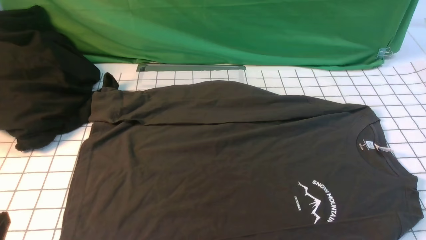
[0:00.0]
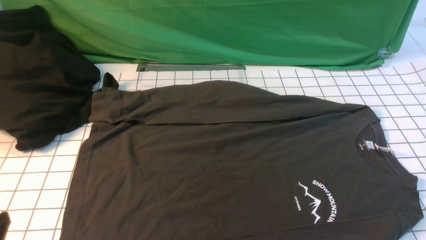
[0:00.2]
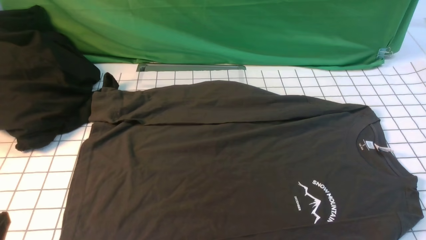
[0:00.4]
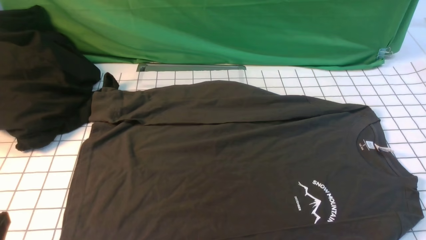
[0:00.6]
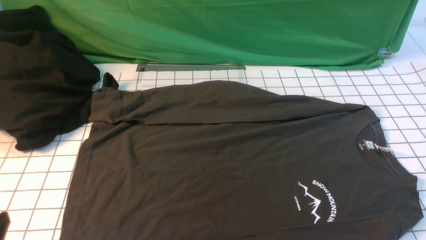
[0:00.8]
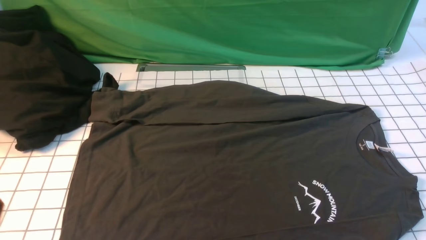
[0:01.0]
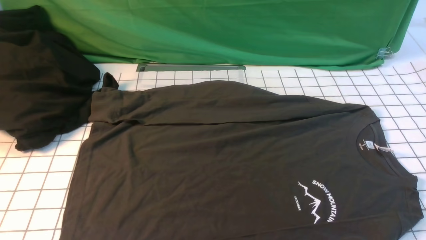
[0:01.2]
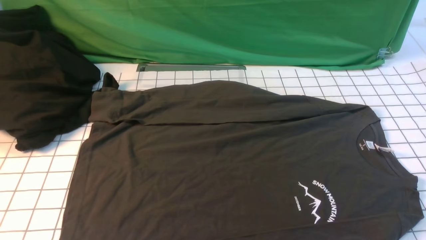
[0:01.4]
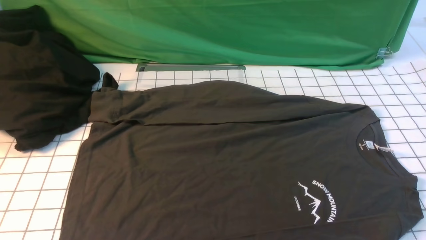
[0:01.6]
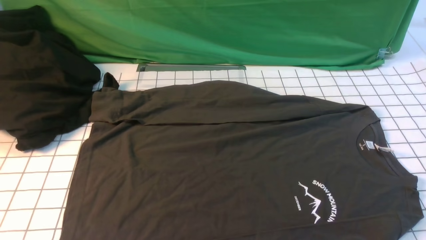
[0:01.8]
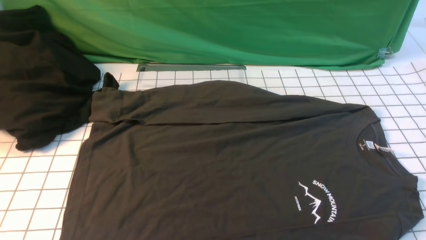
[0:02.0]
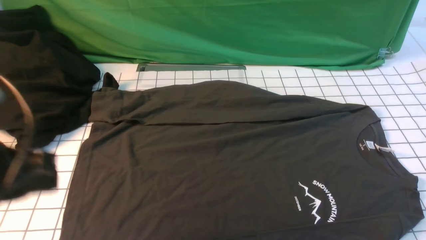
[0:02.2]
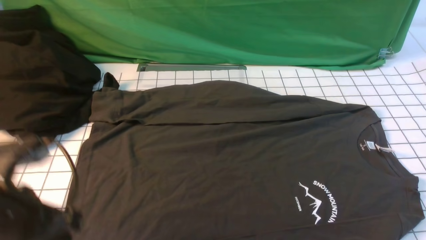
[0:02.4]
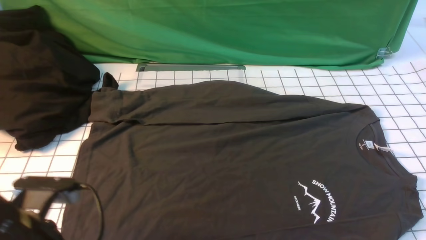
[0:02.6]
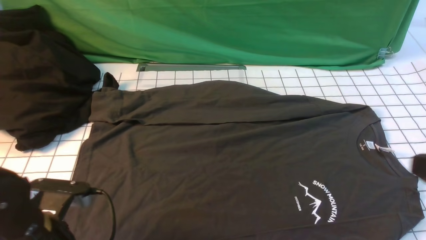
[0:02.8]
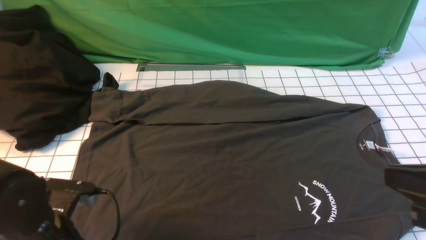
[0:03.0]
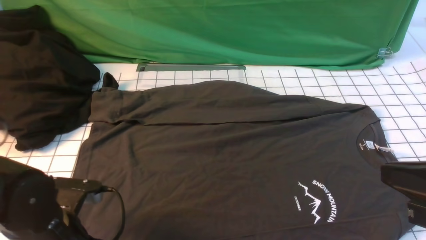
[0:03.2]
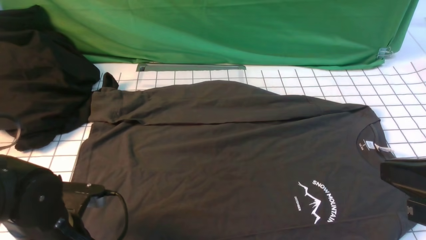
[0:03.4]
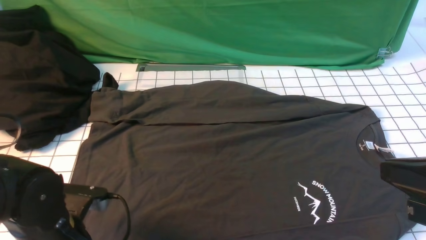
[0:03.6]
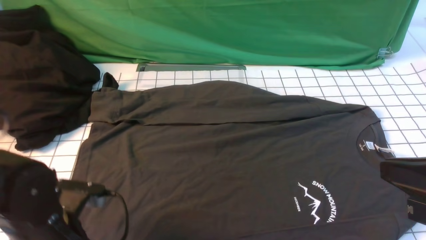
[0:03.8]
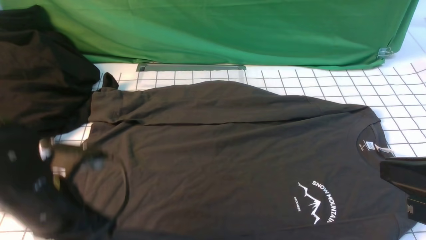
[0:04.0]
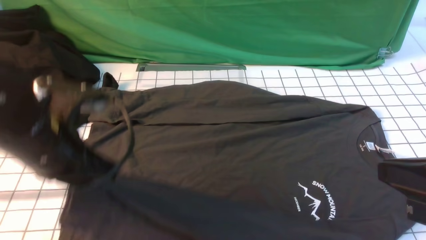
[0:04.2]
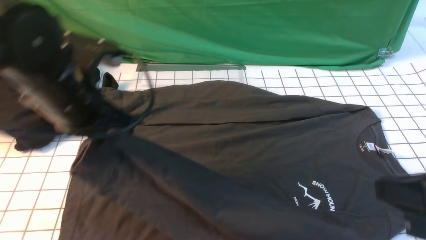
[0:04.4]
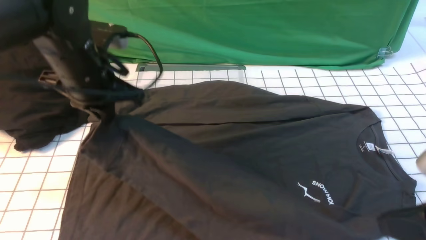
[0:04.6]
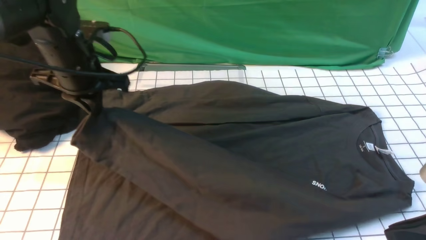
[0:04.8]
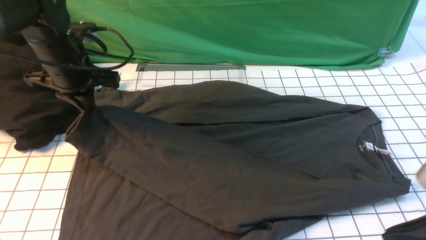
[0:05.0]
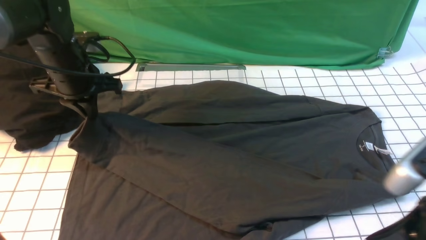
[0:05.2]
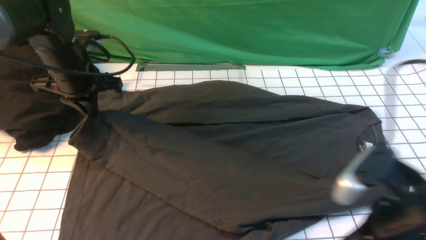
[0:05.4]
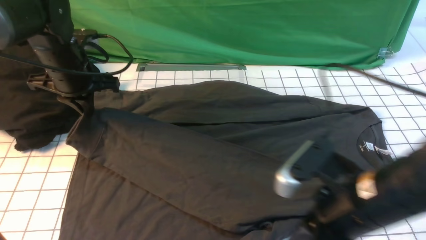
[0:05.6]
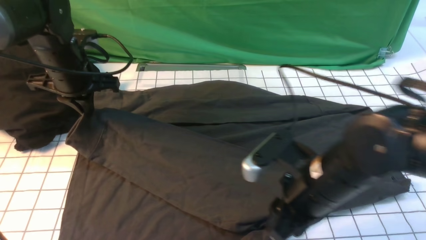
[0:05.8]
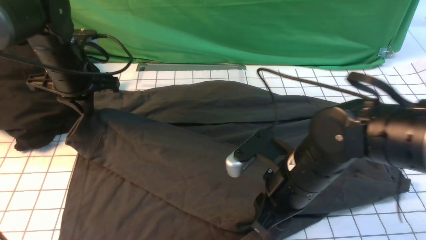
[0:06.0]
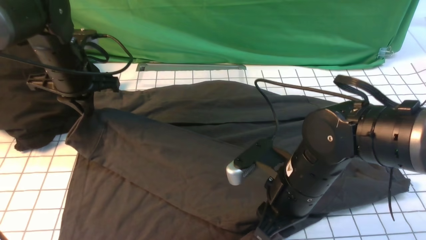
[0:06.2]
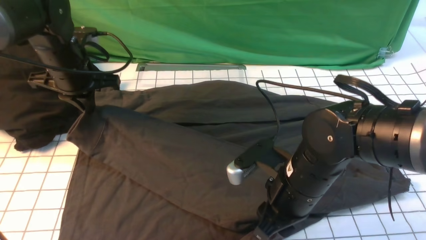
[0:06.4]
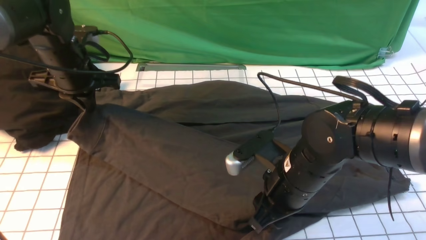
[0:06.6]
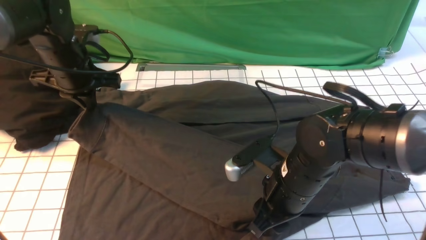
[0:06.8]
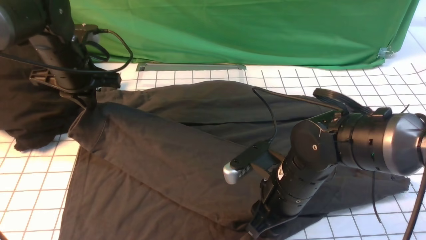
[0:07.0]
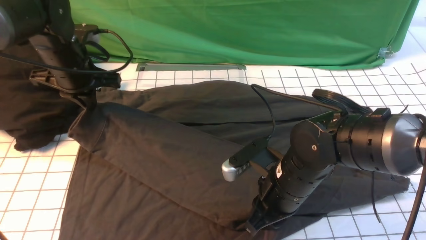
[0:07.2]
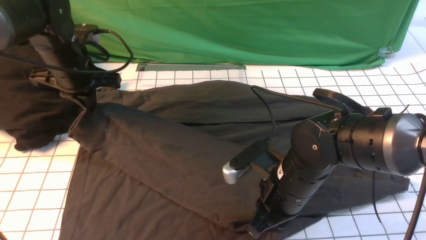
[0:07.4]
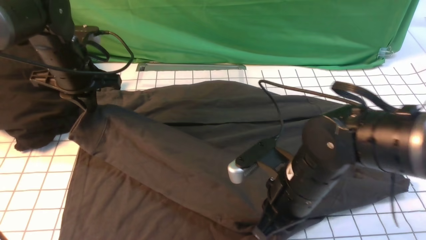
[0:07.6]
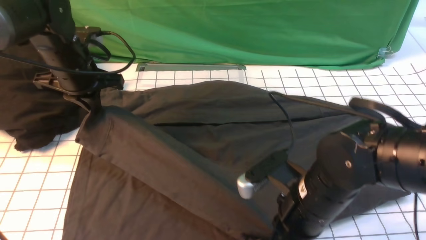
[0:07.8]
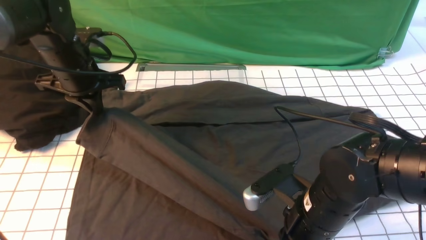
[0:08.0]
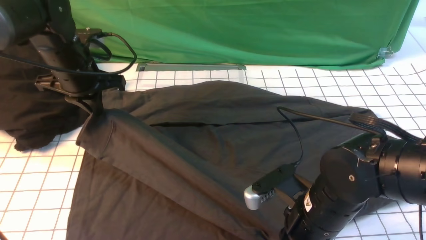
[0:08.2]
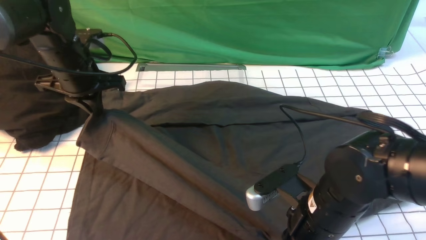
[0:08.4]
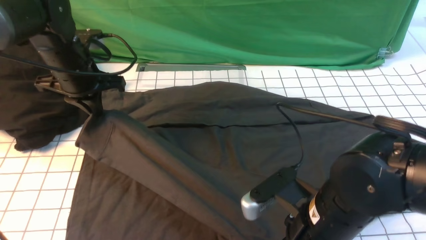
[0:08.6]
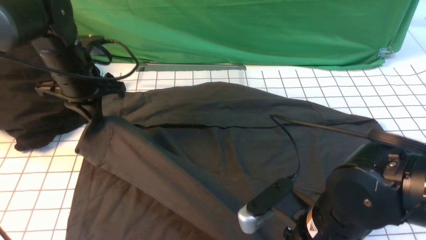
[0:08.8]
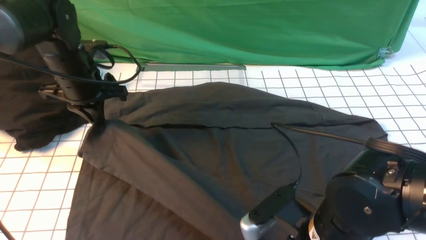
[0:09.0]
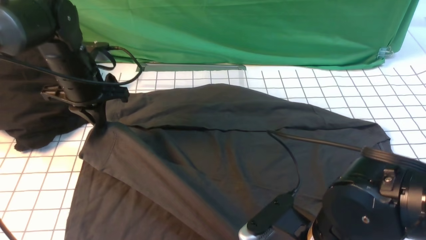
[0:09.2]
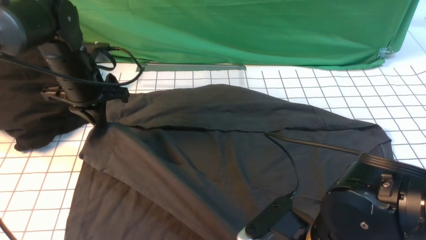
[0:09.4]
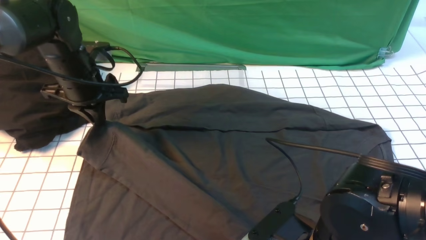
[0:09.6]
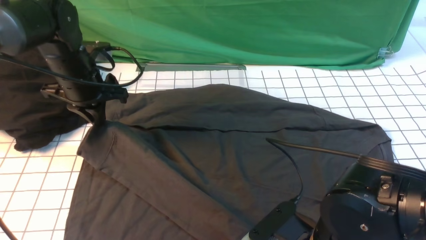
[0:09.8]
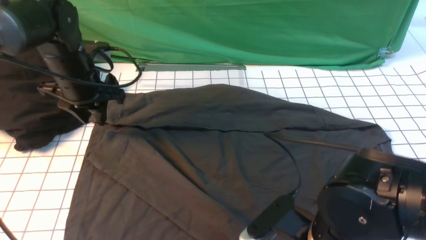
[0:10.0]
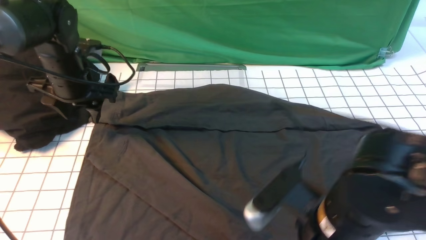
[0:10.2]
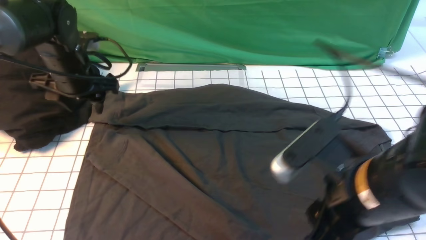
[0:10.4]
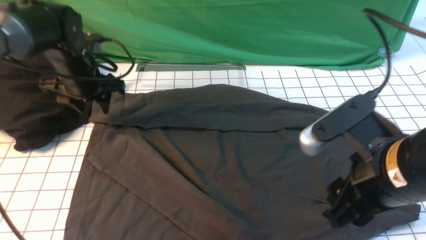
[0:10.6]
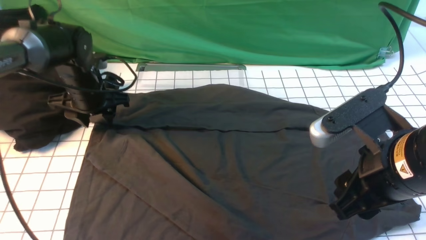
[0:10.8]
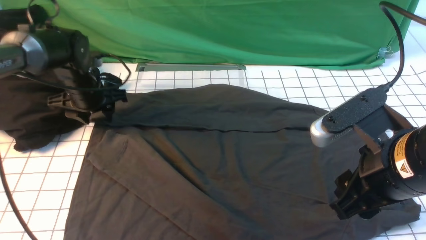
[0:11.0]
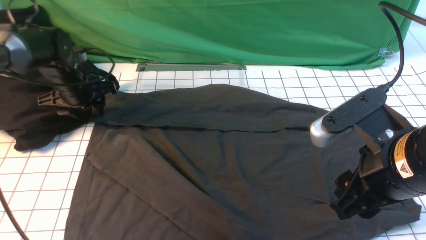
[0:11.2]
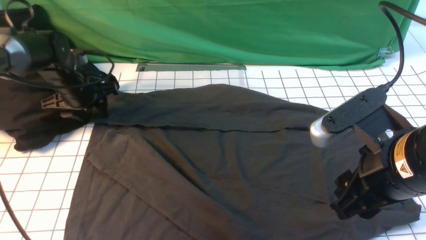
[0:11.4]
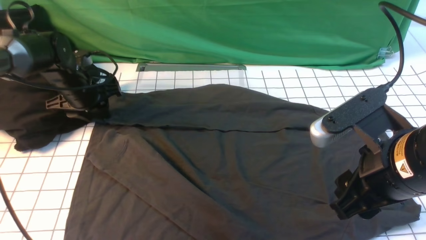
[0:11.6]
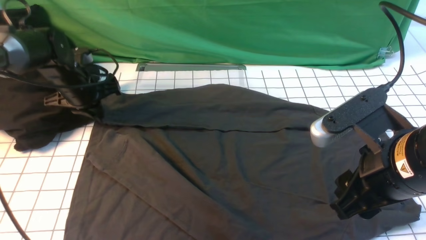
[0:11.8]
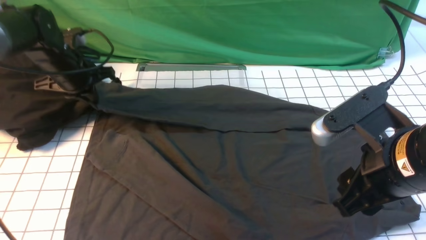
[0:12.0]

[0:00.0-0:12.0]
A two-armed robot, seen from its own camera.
Step, 0.0 to 3.8 s: use the left arm to clamp the cuff closest to it.
Step, 4.2 to 10.2 s: use the left arm to drag and place the cuff at the centered position on the left edge of the fabric.
Step, 10.4 to 11.8 s: use the left arm to clamp the cuff farthest from it.
1.6 to 3.0 s: The left gripper travels forward, downward and to the right by roughly 20 cm, and opens up. Meanwhile the right gripper is displaced upward, to the left and forward by some 15 cm, and closes.
3.0 to 4.4 s: The left gripper heads upward and forward, covering about 15 cm, and closes its fingers.
4.4 to 6.0 s: The right gripper moves to the left, forward and downward, about 20 cm, and opens; the left gripper is displaced forward, to the left and downward by approximately 15 cm.
6.0 to 7.6 s: The right gripper closes up.
7.6 to 9.0 s: The right gripper goes approximately 10 cm backward.
9.0 to 10.4 s: The left gripper opens. The right gripper travels upward by roughly 10 cm, and opens its fingers.
10.4 to 12.0 s: The right gripper ends up approximately 5 cm from where it was. The left gripper closes.

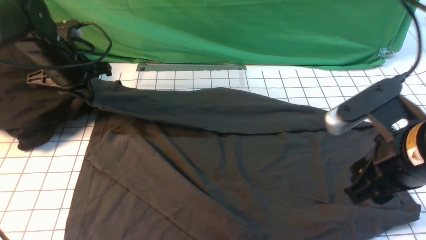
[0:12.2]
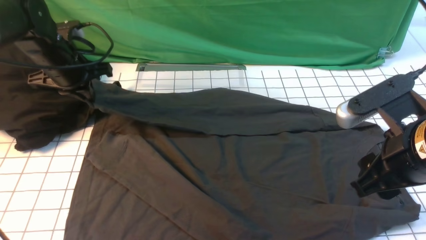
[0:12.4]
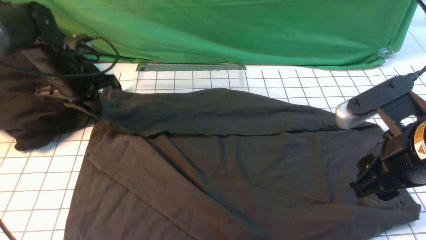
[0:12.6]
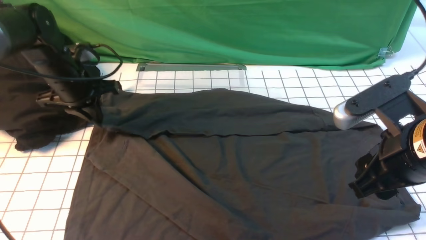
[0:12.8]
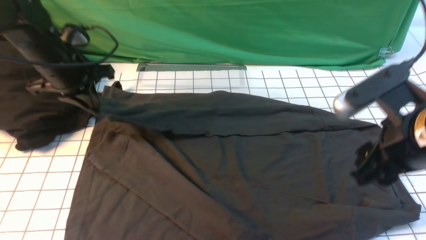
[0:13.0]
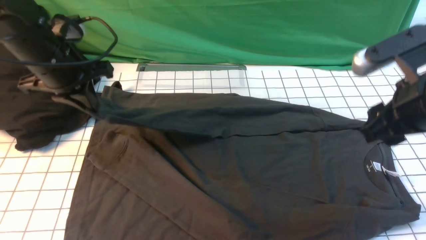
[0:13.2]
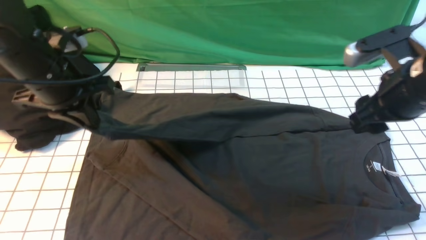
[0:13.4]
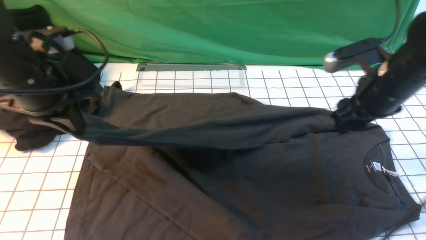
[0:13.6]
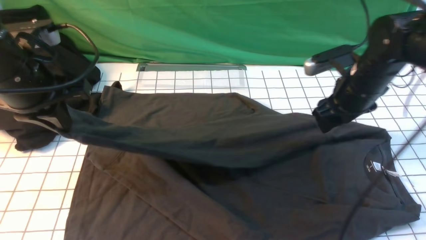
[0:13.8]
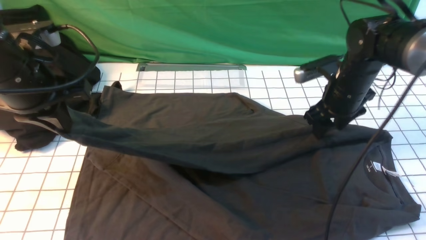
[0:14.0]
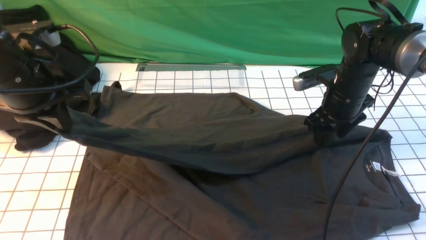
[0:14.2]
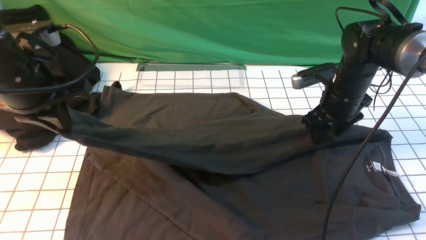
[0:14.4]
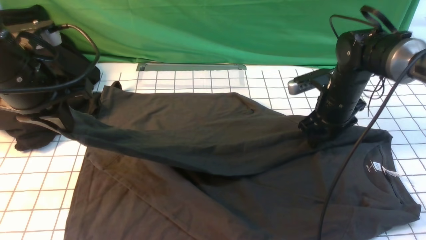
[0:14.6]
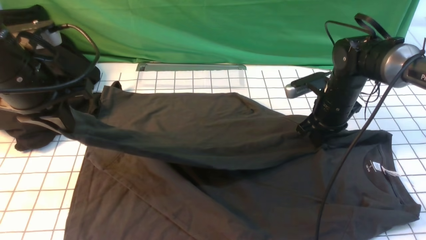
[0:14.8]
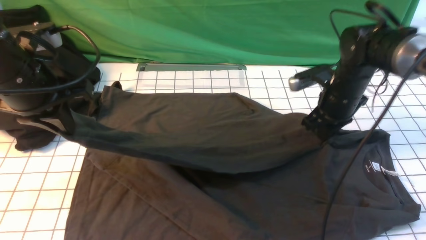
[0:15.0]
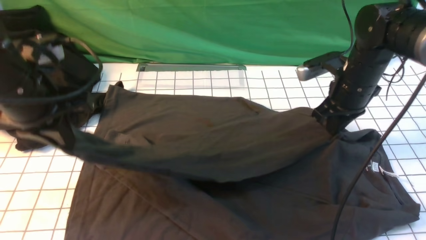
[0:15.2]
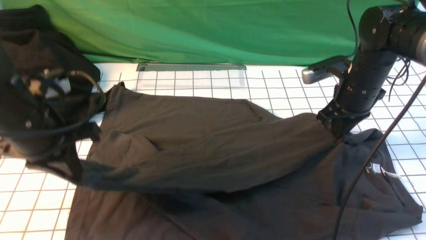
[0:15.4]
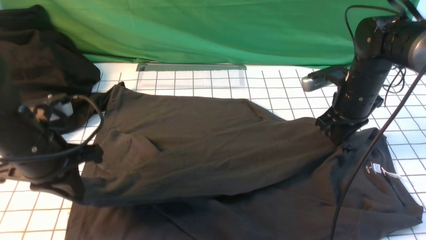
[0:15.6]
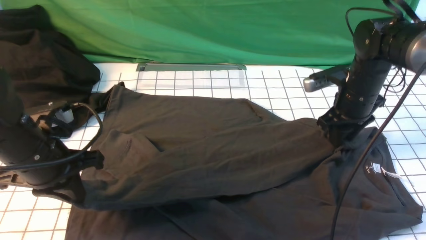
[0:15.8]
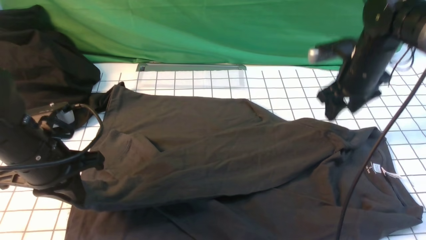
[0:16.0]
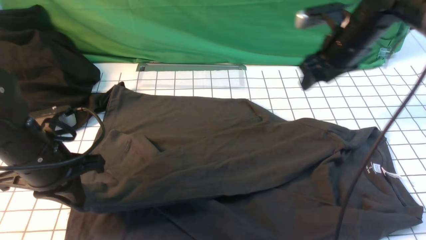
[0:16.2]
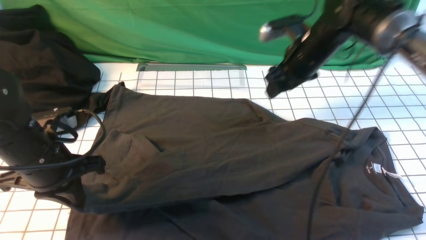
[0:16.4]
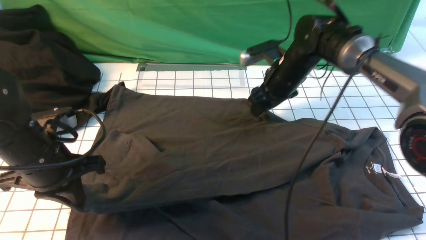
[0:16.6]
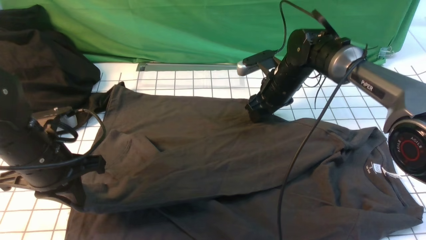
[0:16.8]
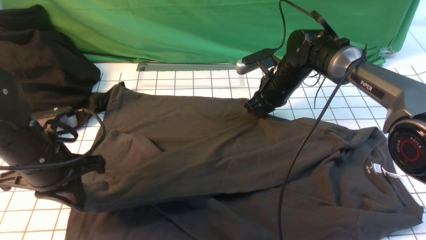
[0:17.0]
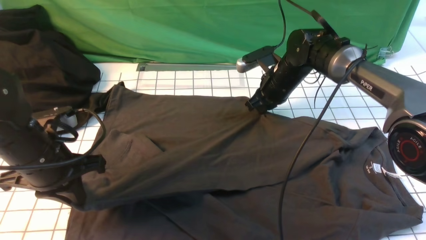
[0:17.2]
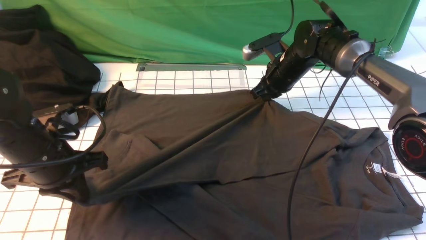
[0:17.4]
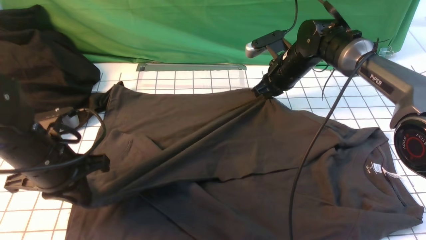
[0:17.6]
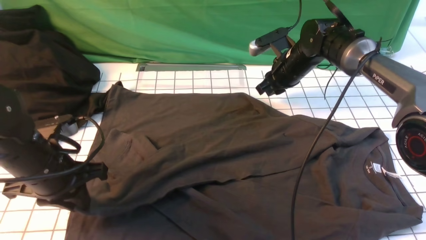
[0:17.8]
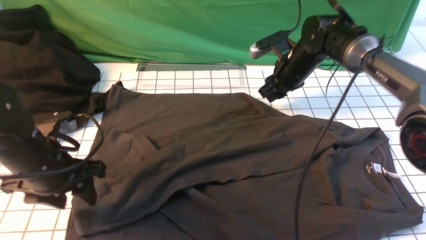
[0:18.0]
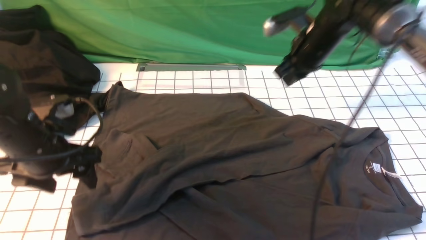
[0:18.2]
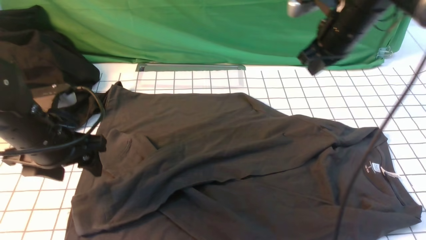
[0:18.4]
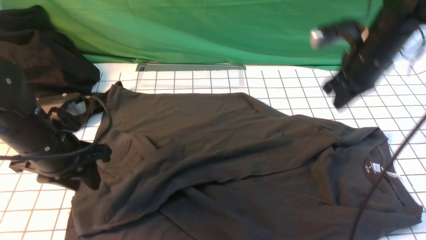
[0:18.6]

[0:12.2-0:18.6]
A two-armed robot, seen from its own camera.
Step, 12.2 to 18.2 s: use the left arm to drag and drop the cuff onto the cuff closest to the left arm.
12.2 to 13.8 s: The left gripper shifts roughly 15 cm backward and upward. Meanwhile the right gripper heads forward, covering some 20 cm.
13.8 to 15.4 s: The left gripper shifts by approximately 5 cm, while the right gripper closes.
15.4 to 17.0 s: The right gripper moves to the left and forward, roughly 15 cm, and opens, then closes once more; the left gripper is displaced downward by approximately 5 cm.
17.0 to 18.6 s: The left gripper opens its fingers; the right gripper heads to the right, upward and backward, covering roughly 15 cm.
